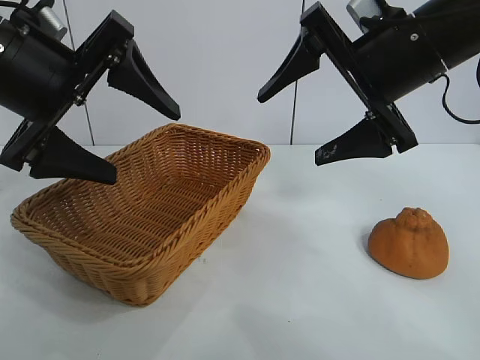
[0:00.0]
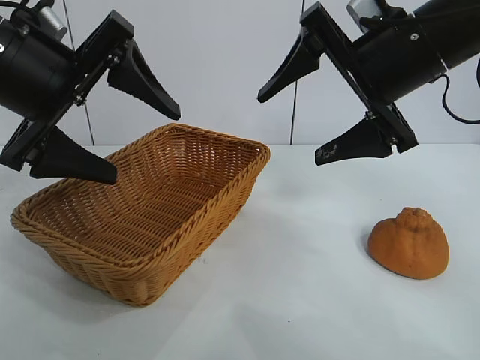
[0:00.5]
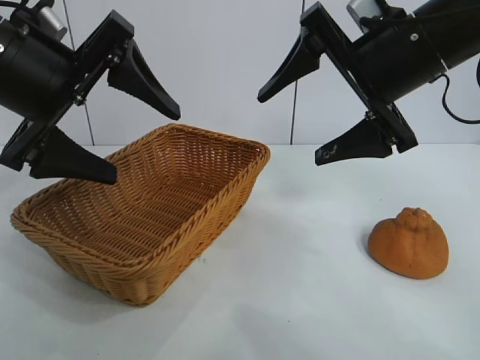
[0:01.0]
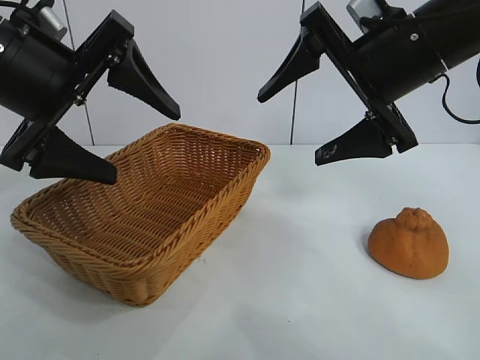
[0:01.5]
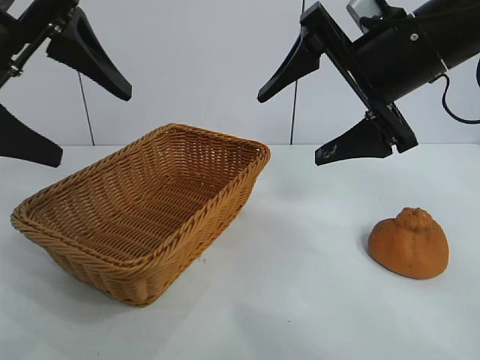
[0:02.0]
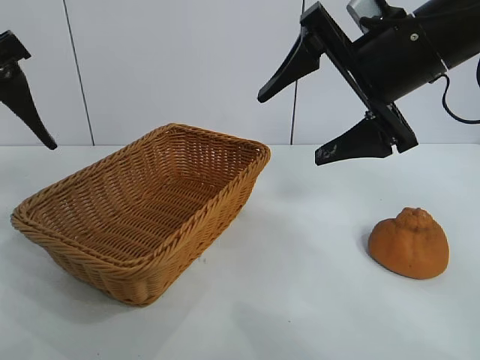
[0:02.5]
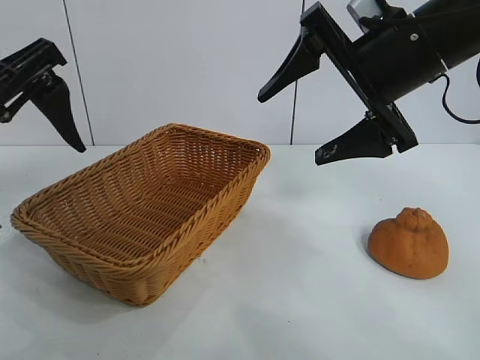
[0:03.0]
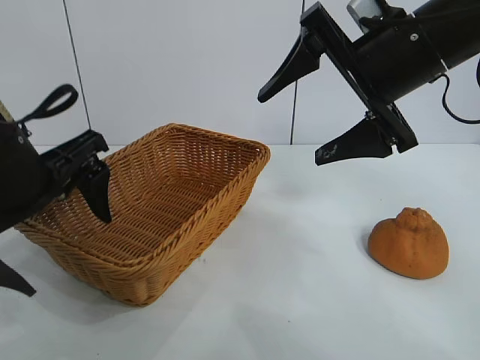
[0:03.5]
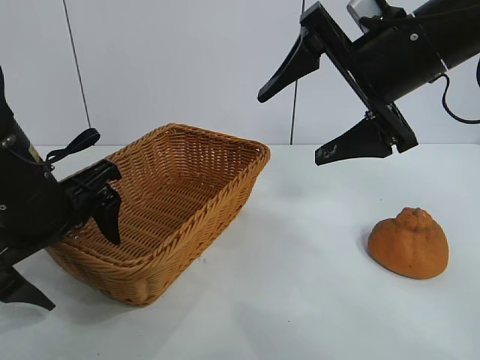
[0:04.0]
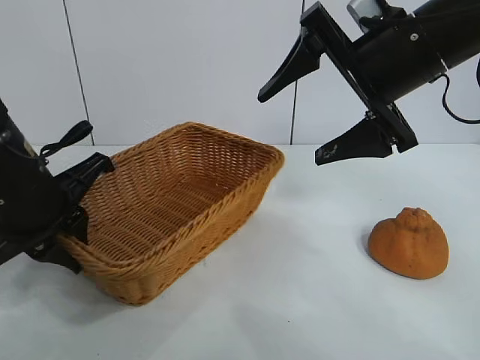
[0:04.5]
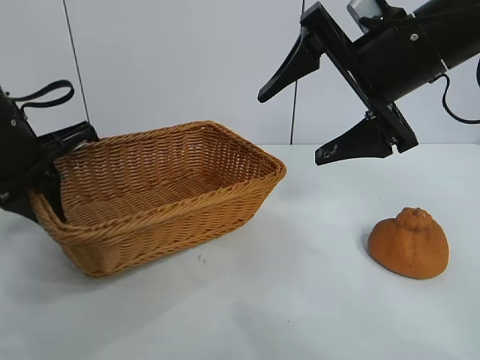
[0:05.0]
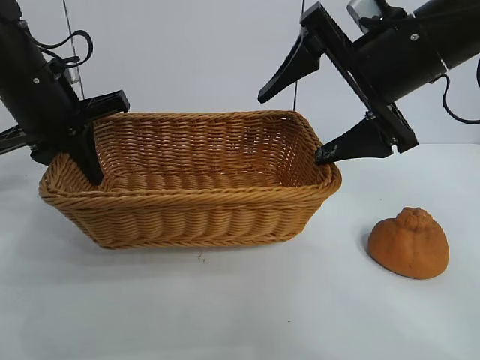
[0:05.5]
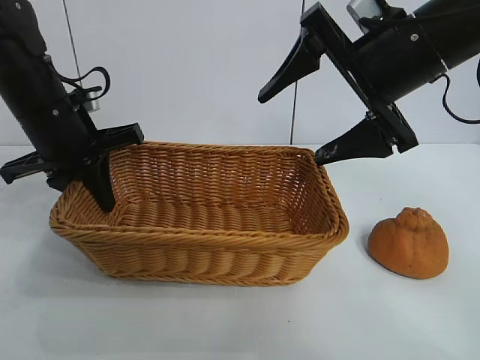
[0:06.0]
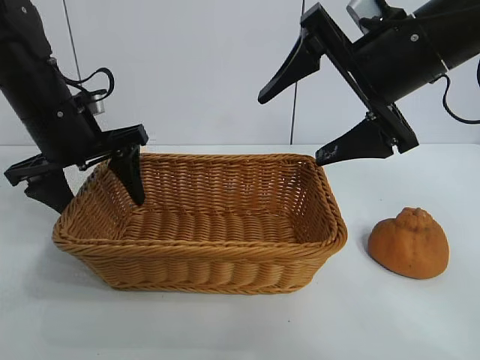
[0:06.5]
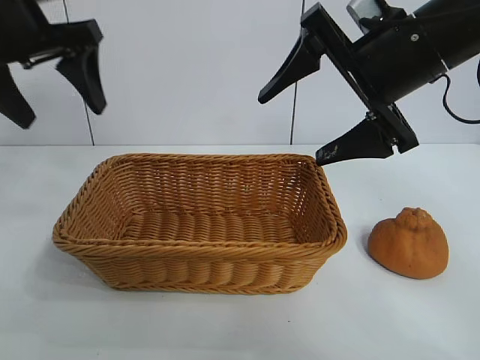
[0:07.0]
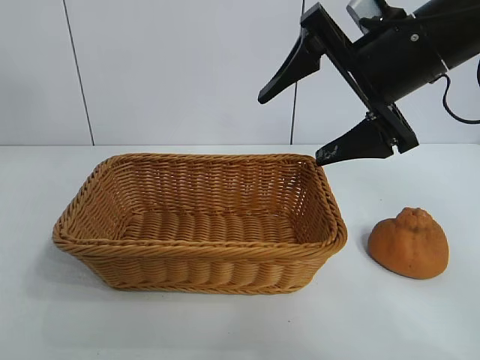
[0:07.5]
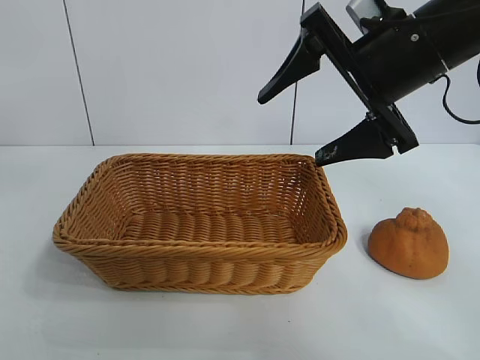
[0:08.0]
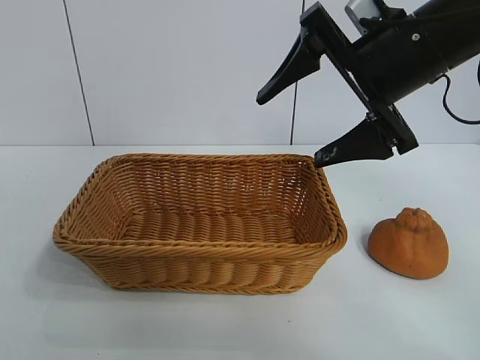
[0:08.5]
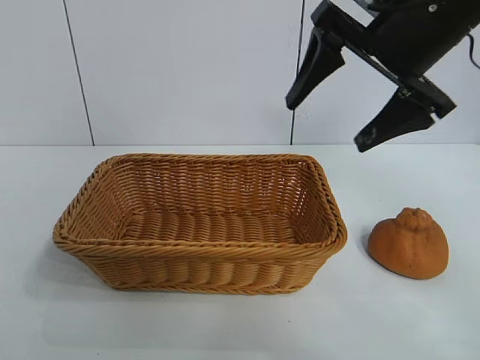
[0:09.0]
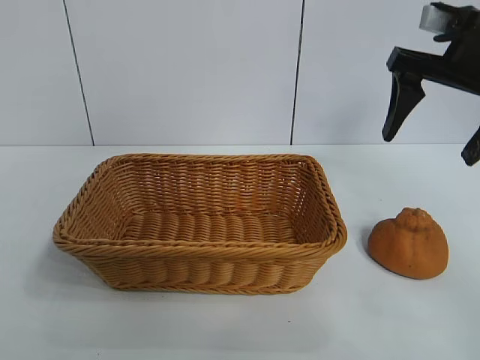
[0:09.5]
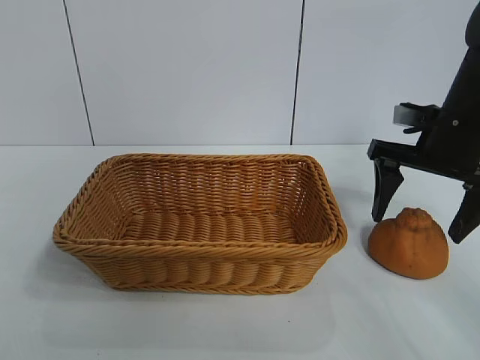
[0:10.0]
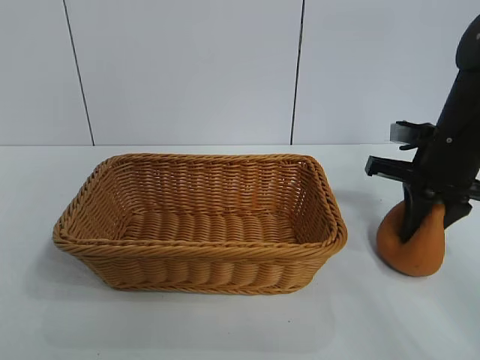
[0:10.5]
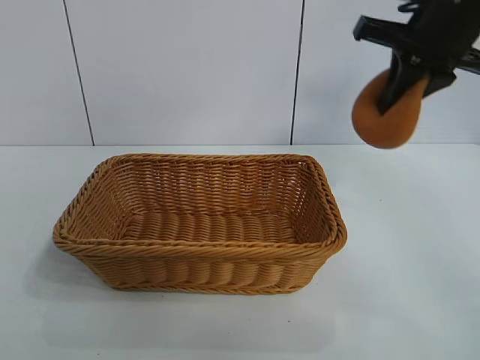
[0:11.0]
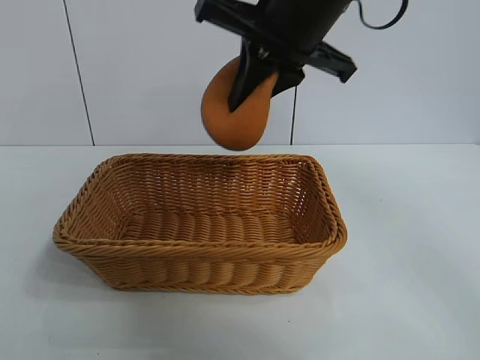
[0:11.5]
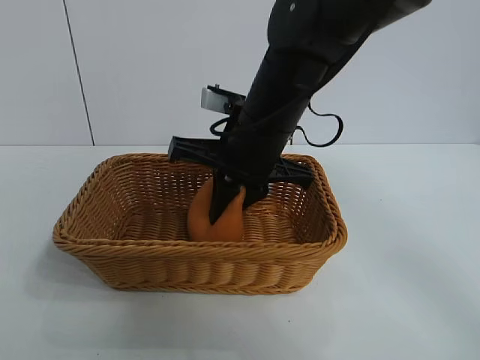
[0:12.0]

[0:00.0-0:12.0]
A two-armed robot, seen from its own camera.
Task of the whole recording: pick up the orange and put it into the basket.
Step, 0:01.5 to 0:04.5: Grasp the basket with left gripper.
Step, 0:05.0 to 0:06.0: Place the basket in the center of view with left gripper.
Step, 0:06.5 to 0:10.0: Grasp the orange with right gripper.

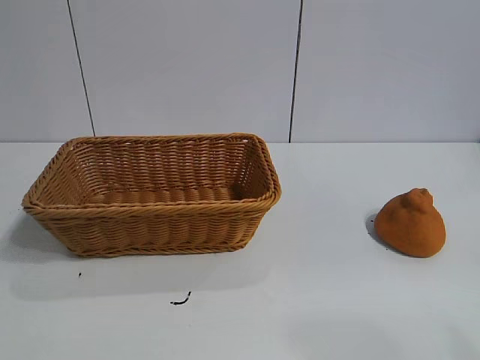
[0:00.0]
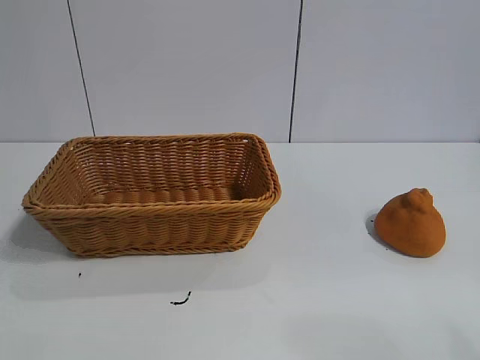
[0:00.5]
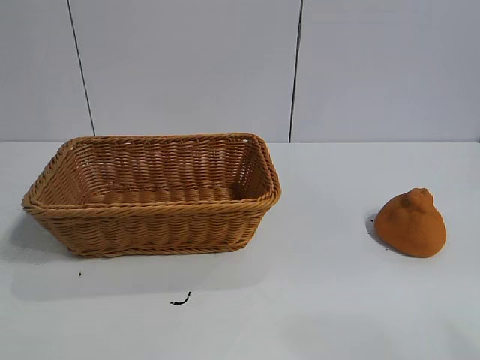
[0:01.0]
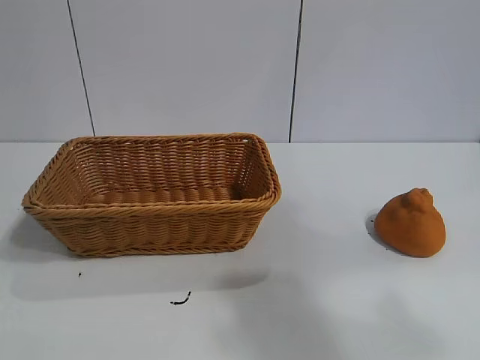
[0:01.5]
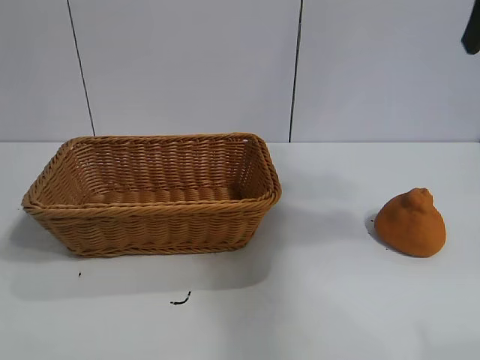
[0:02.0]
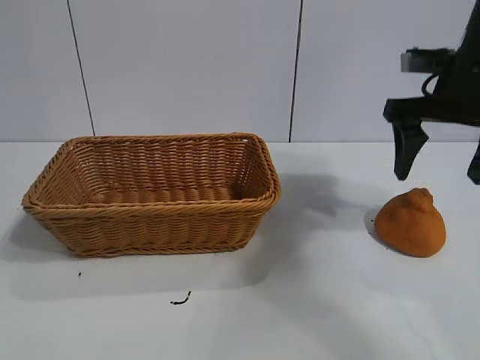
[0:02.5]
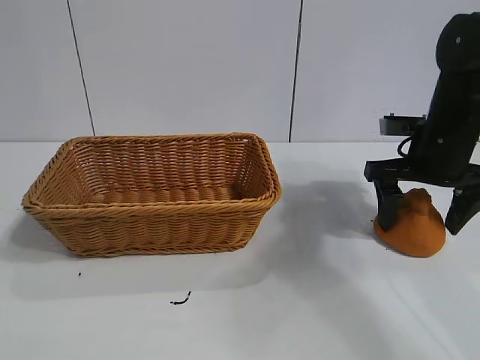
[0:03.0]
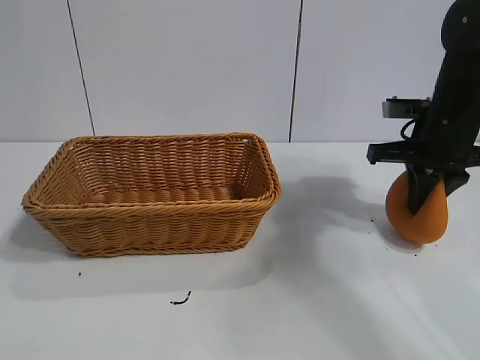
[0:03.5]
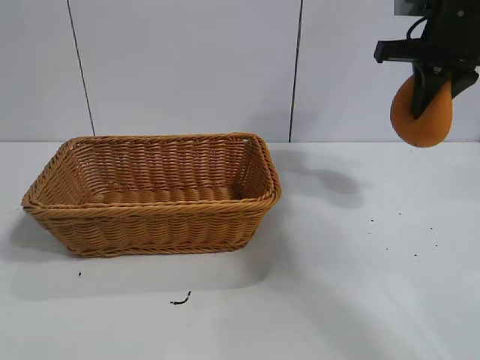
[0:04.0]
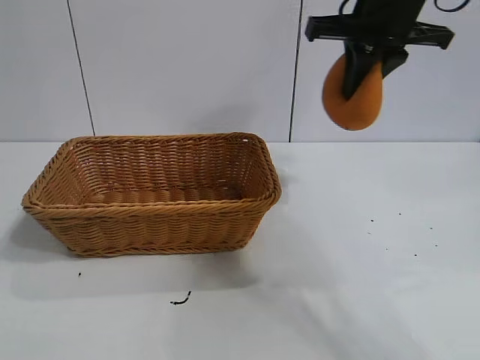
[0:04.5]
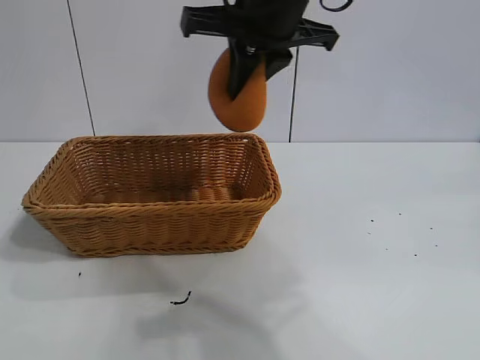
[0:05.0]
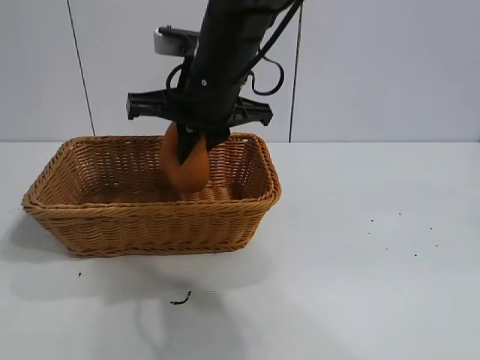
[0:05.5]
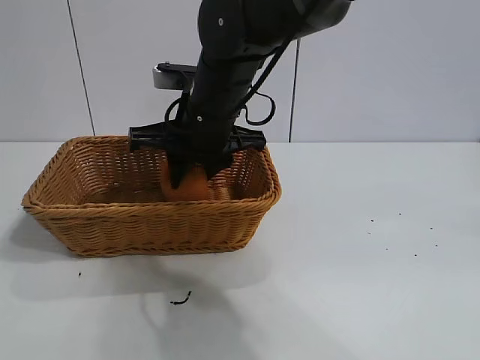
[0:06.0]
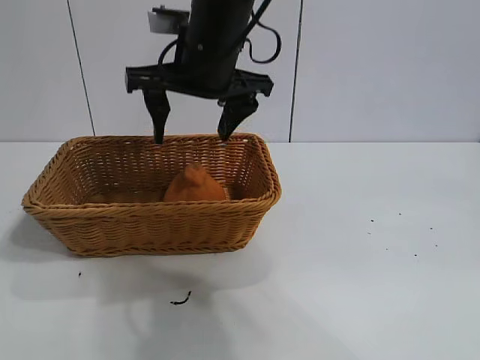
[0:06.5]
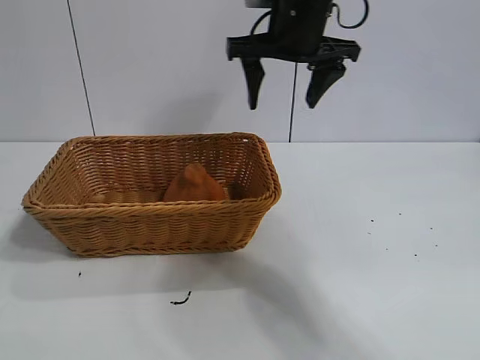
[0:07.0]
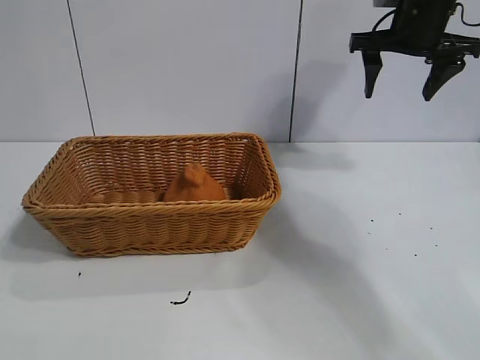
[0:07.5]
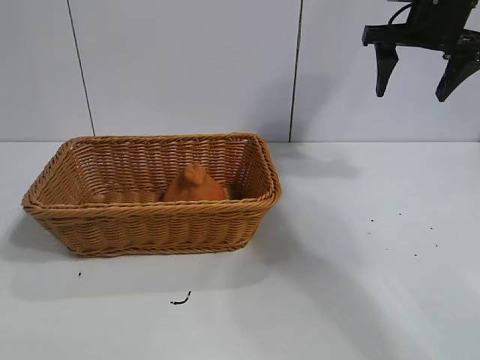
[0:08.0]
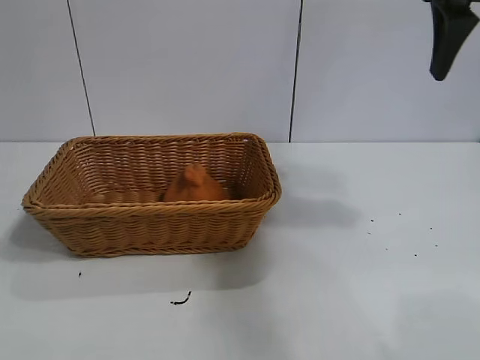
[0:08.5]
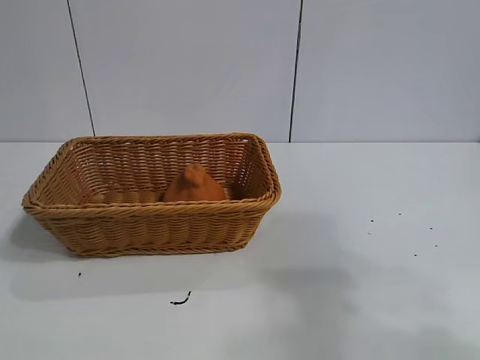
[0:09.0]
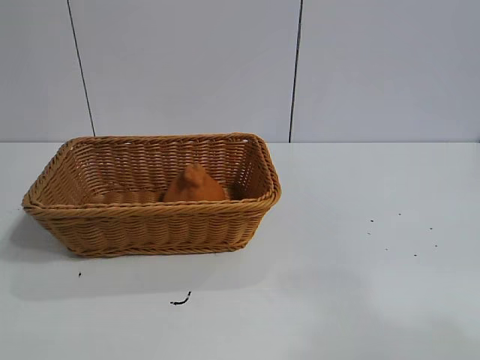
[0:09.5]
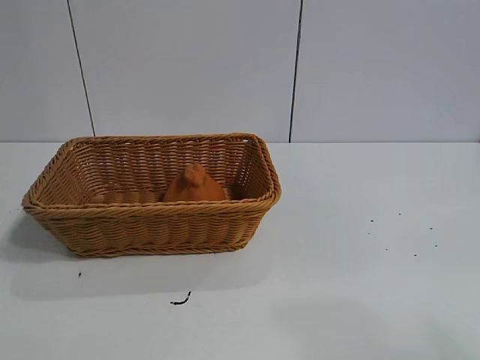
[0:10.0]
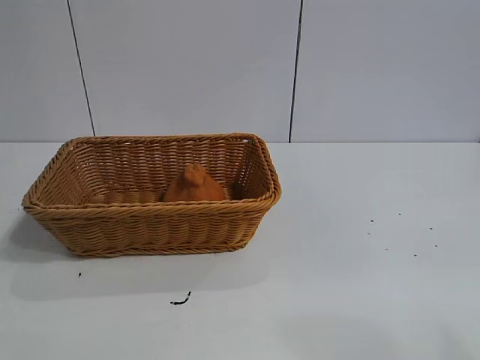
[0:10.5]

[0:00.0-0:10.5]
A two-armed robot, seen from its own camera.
Task of the whole recording: pick up the orange and put it into the basket.
Step, 0:01.0 to 0:03.0: Grasp the orange with right gripper.
Step, 0:03.5 to 0:06.0: Place the orange in the basket with right gripper.

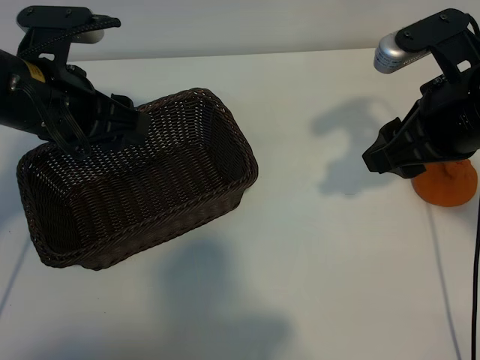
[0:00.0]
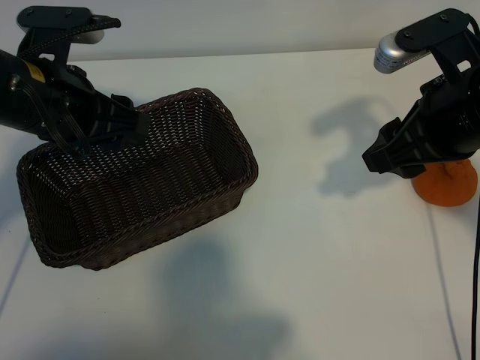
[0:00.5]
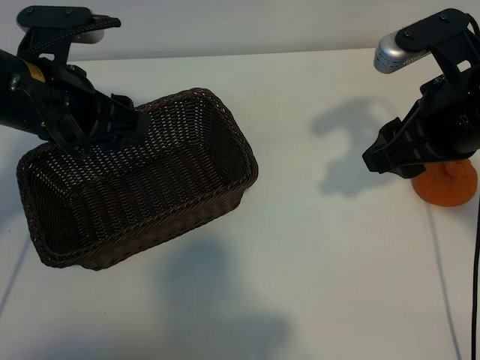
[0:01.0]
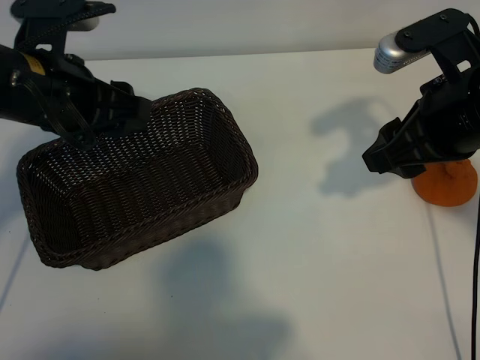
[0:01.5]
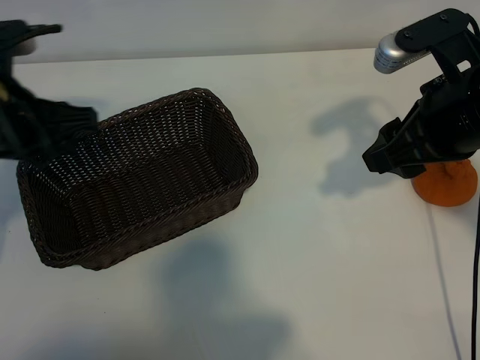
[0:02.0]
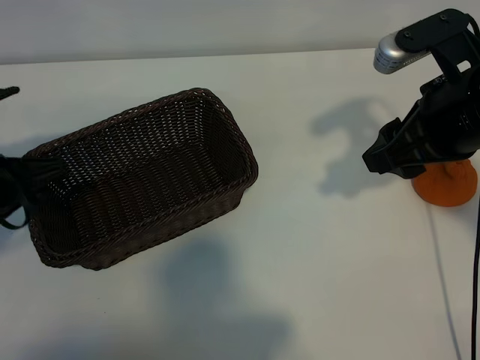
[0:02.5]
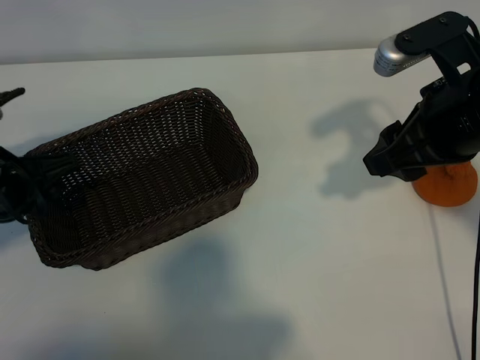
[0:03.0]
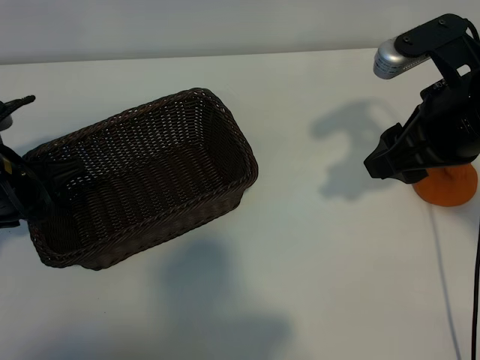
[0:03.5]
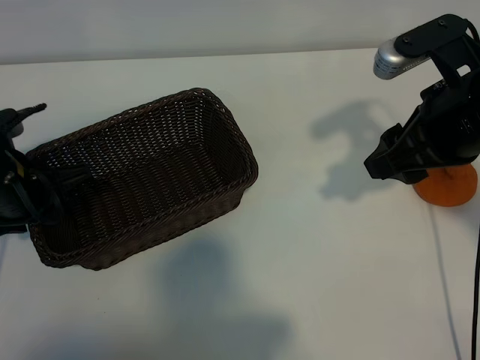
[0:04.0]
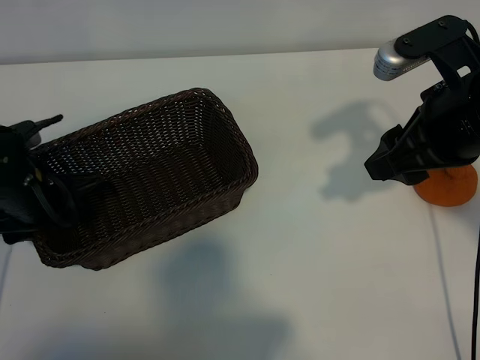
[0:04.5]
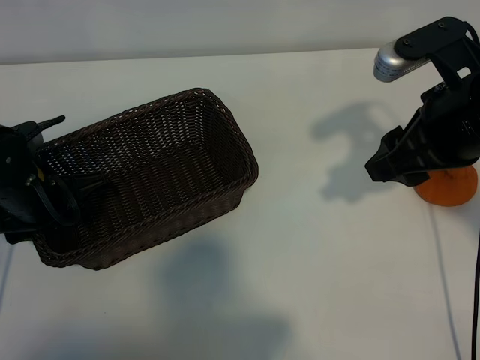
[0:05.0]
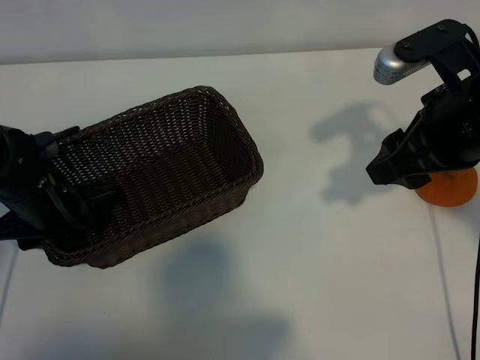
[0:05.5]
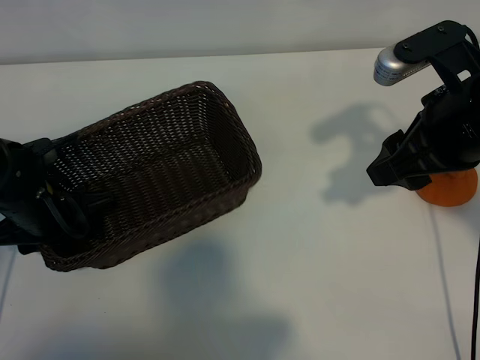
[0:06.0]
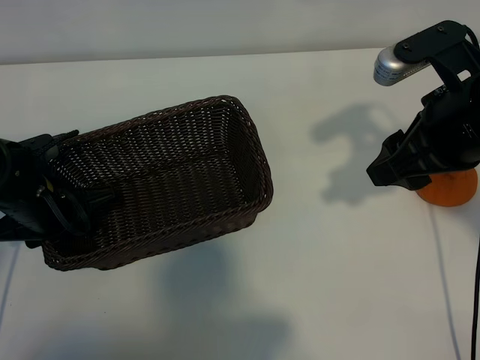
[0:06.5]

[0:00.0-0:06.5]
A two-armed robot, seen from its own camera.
Task of the whole recording: pick up the orange and put it into the basket.
Step, 0:01.0 to 0:06.0: Grasp the basket with left gripper.
